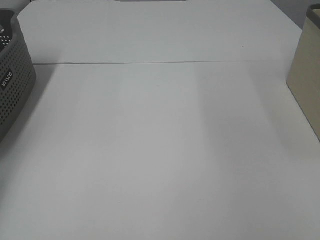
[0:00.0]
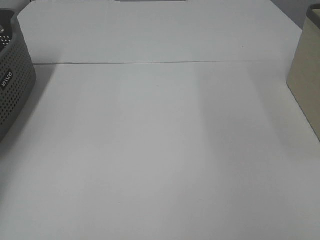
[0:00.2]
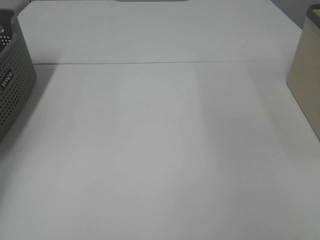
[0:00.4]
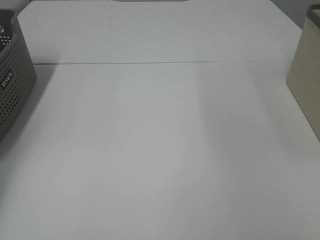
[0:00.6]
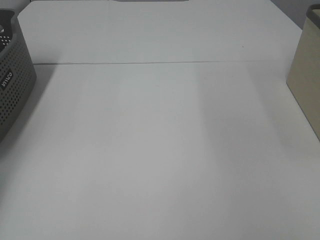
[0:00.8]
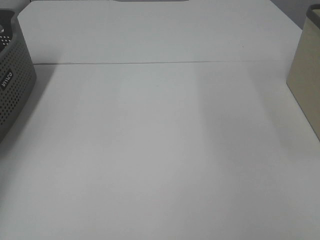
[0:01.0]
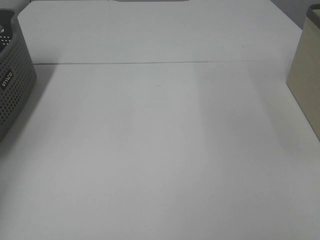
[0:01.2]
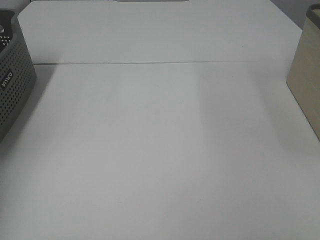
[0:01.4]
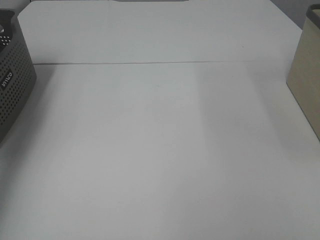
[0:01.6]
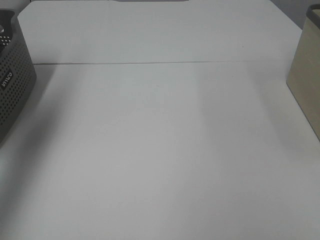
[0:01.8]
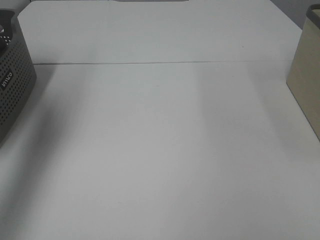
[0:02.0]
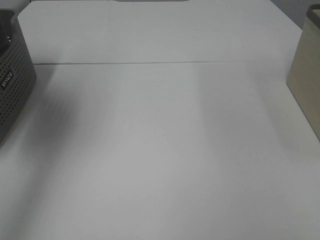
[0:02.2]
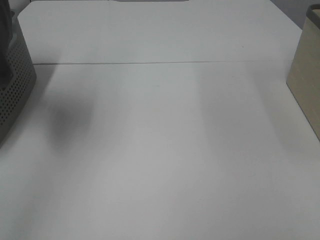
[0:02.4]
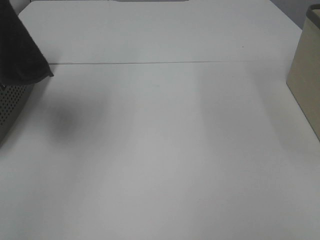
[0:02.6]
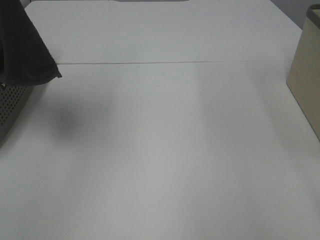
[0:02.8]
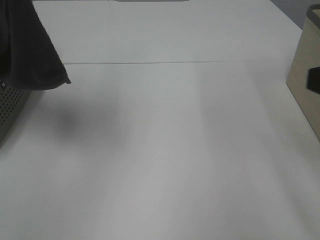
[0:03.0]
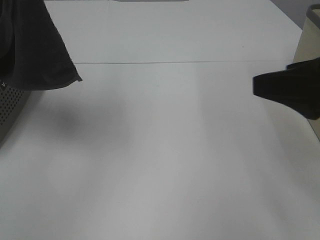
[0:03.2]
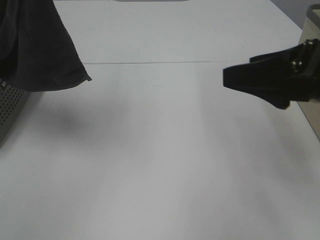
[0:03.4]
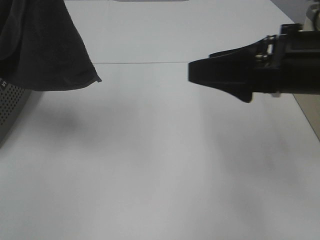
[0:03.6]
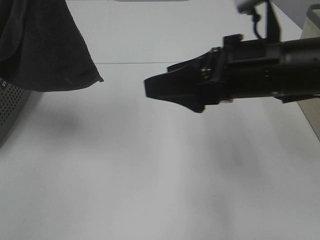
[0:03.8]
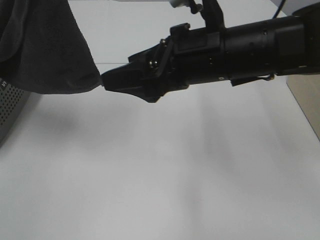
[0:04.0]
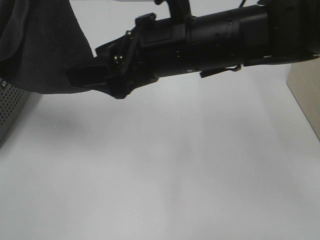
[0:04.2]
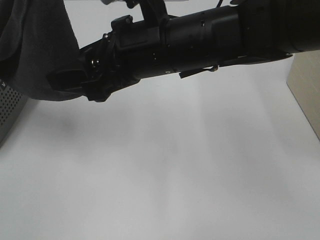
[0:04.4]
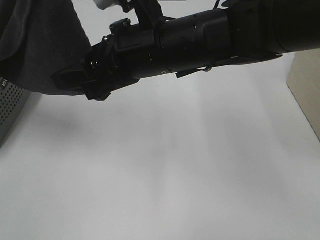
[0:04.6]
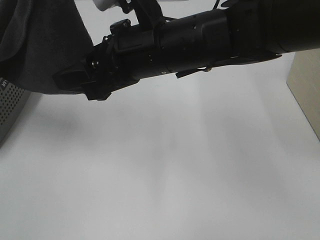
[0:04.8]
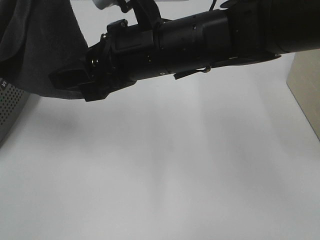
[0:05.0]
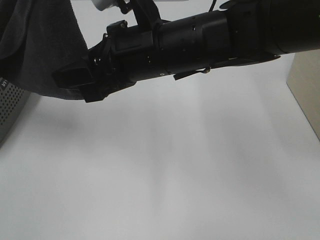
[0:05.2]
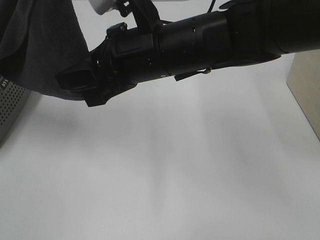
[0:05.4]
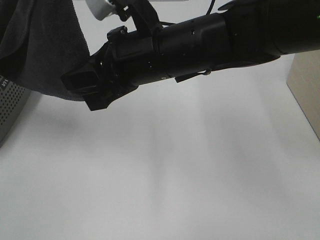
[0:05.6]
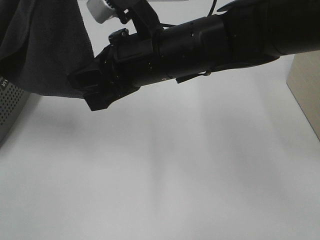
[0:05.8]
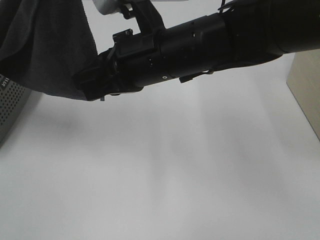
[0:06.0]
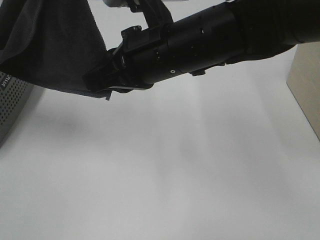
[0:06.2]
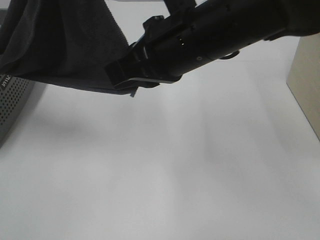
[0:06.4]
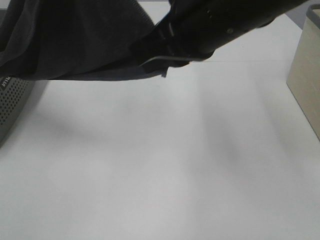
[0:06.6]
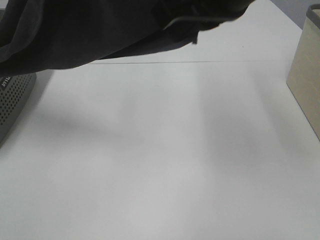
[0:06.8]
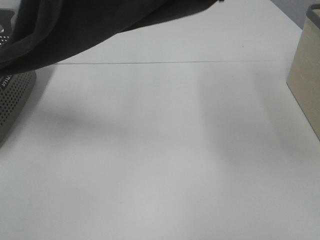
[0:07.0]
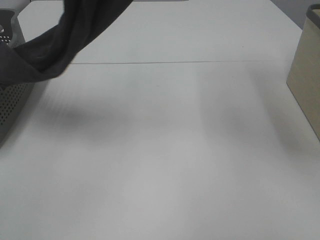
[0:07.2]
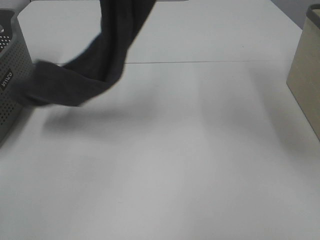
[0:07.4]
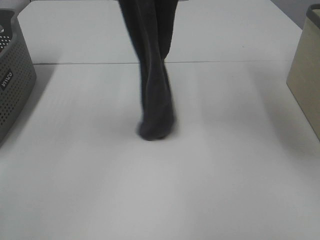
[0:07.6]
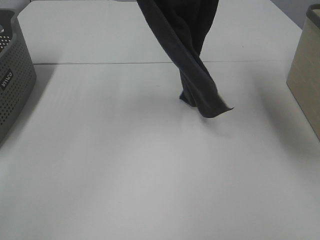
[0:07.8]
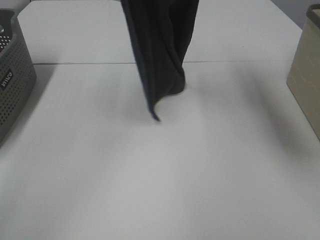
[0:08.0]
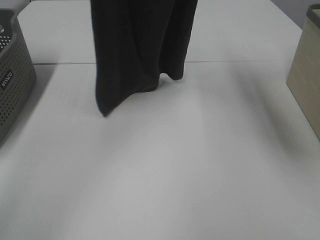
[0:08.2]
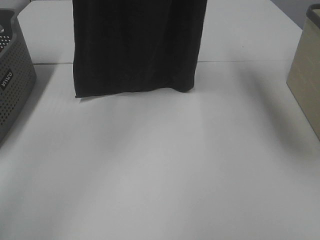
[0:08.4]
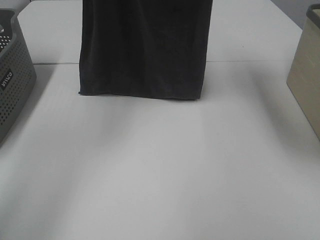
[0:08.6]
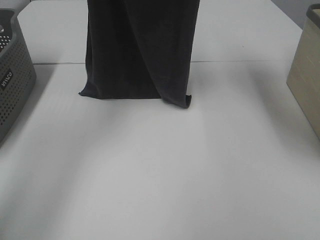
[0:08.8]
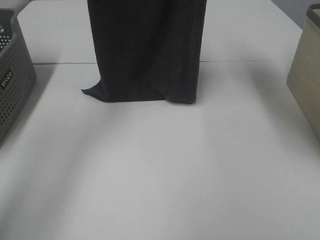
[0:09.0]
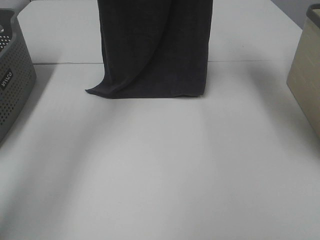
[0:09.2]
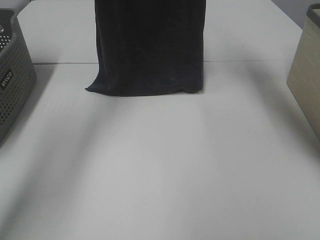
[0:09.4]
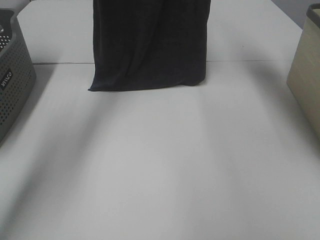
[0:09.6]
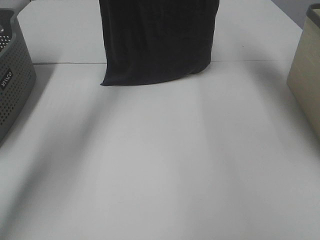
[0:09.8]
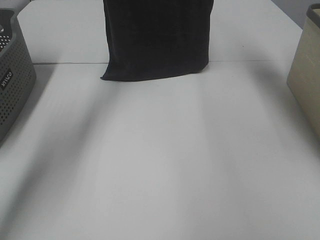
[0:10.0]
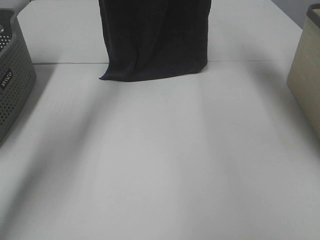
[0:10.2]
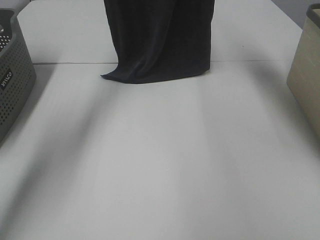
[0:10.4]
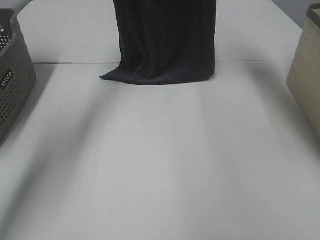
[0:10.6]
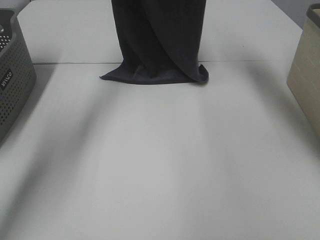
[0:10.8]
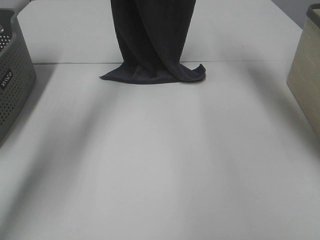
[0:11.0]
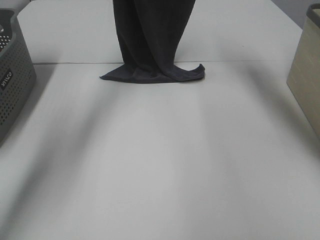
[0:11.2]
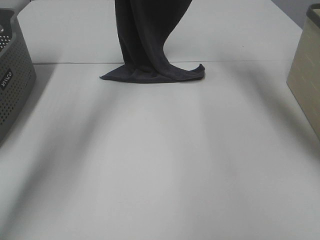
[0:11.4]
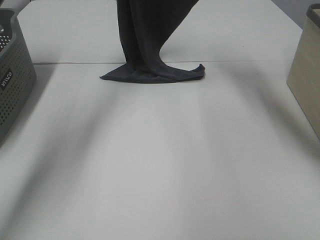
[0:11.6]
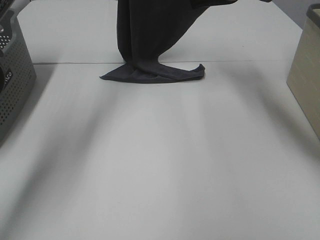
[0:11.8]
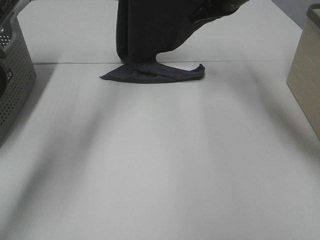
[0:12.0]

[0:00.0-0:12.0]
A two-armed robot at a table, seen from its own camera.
Task of the whole recording: Remove the towel and place it.
Step, 0:02.0 to 0:05.6: Right hand: grab a corner of the grey towel and straighten it.
0:00.0 to 0:01.6: The left gripper travels upward by some 20 cm, and closes its fingers.
0:01.6 to 0:03.0: The right gripper travels forward by approximately 10 cm, while the left gripper travels to the right, upward and backward by some 25 cm.
0:03.0 to 0:04.4: The right gripper shifts about 25 cm to the left and forward.
0:04.4 to 0:06.0: The right gripper closes.
0:06.0 to 0:07.6: The right gripper moves upward, approximately 25 cm, while the left gripper moves forward, about 10 cm.
0:07.6 to 0:09.0: The left gripper is displaced forward and downward by about 15 cm, while the right gripper moves forward, roughly 15 cm.
0:09.0 to 0:10.4: Both grippers move forward, approximately 5 cm.
0:10.4 to 0:12.0: The left gripper is displaced downward by roughly 5 cm, while the right gripper is displaced downward by roughly 20 cm.

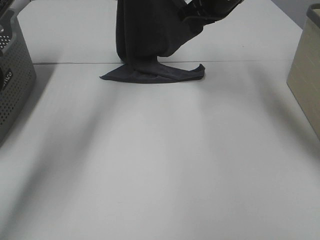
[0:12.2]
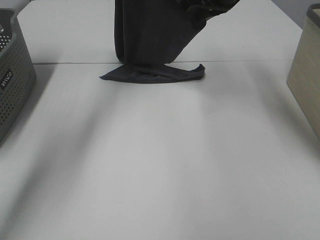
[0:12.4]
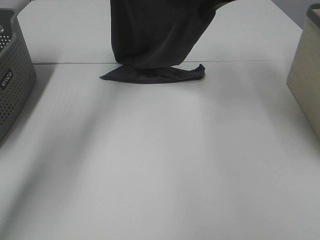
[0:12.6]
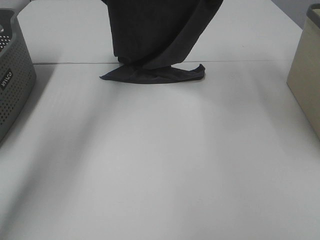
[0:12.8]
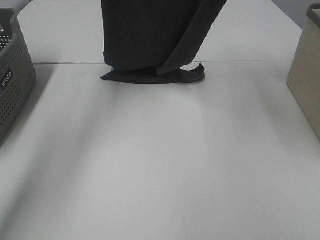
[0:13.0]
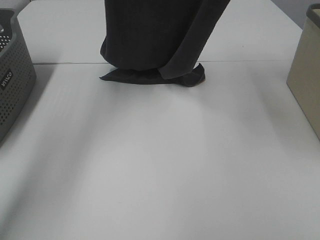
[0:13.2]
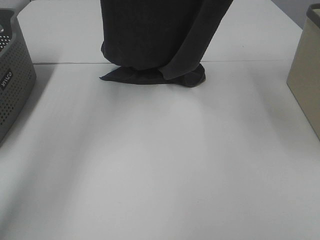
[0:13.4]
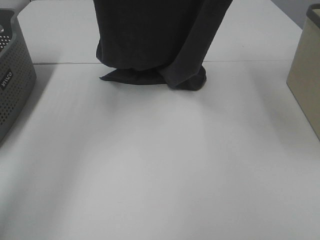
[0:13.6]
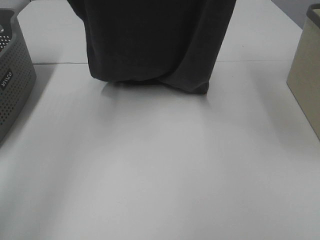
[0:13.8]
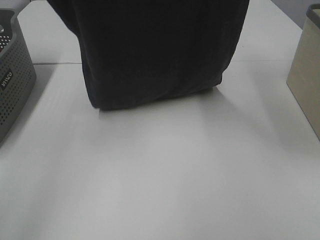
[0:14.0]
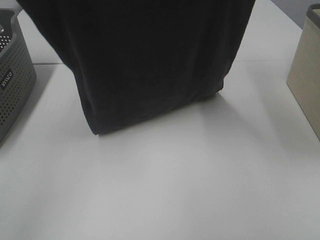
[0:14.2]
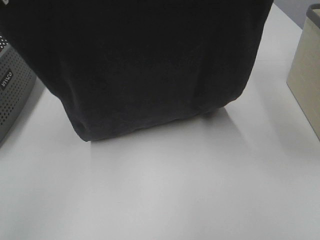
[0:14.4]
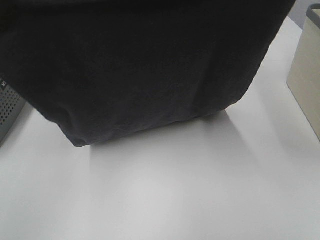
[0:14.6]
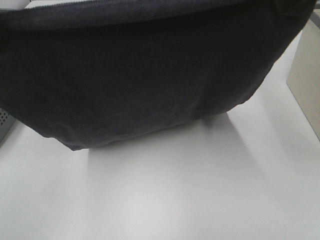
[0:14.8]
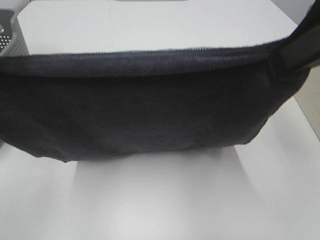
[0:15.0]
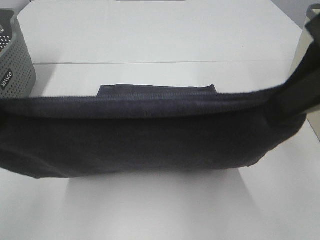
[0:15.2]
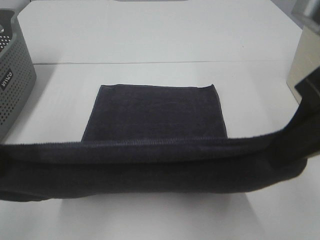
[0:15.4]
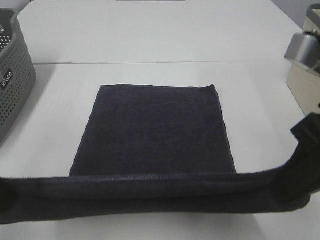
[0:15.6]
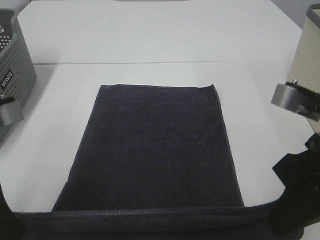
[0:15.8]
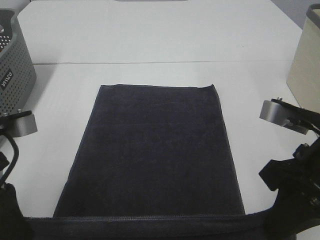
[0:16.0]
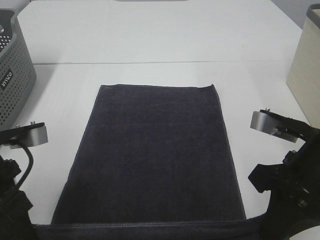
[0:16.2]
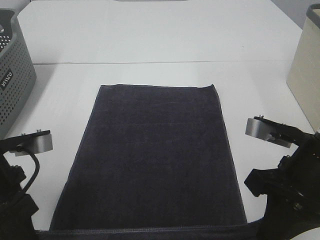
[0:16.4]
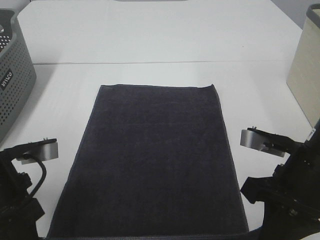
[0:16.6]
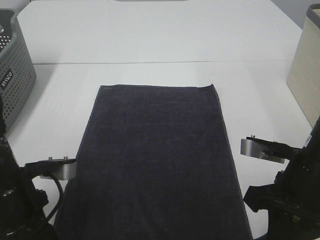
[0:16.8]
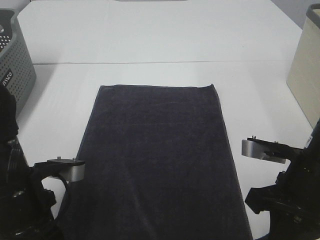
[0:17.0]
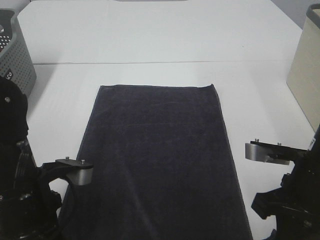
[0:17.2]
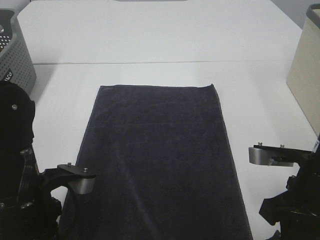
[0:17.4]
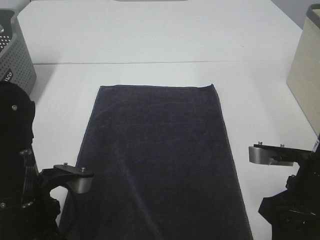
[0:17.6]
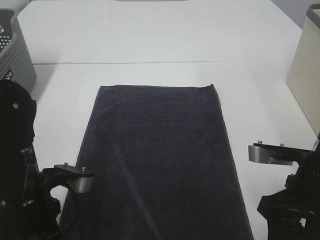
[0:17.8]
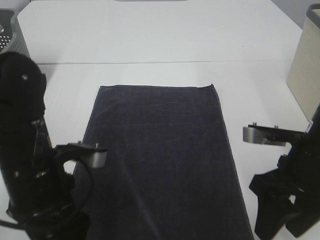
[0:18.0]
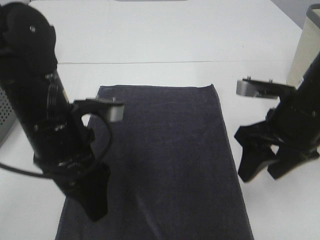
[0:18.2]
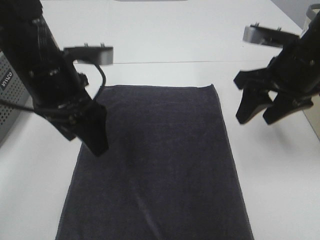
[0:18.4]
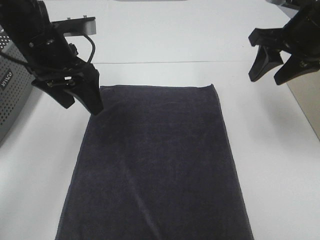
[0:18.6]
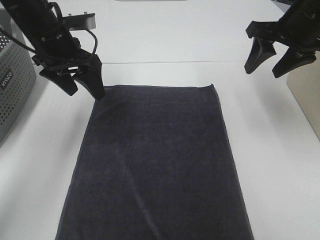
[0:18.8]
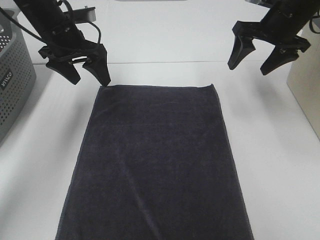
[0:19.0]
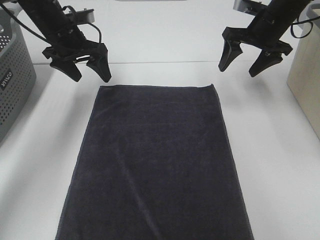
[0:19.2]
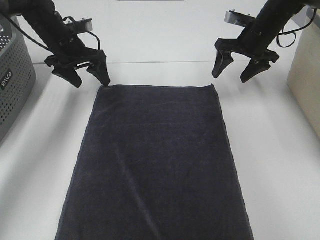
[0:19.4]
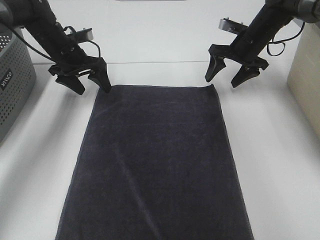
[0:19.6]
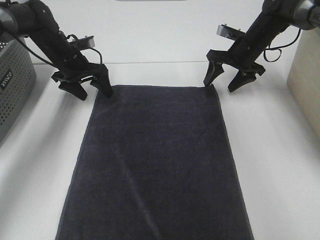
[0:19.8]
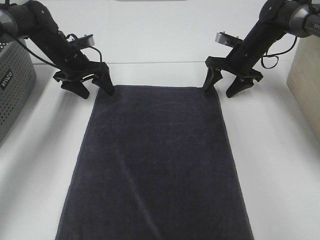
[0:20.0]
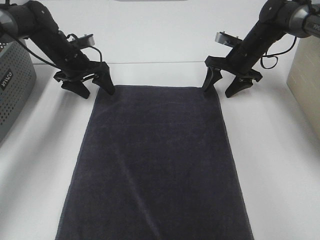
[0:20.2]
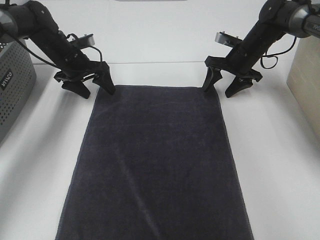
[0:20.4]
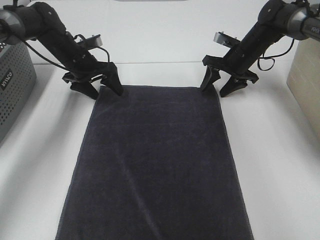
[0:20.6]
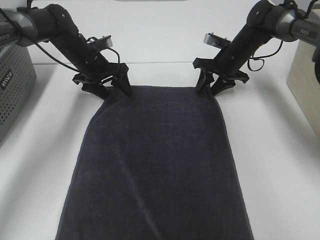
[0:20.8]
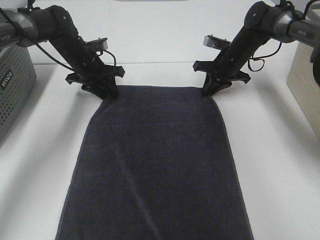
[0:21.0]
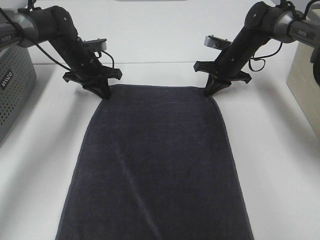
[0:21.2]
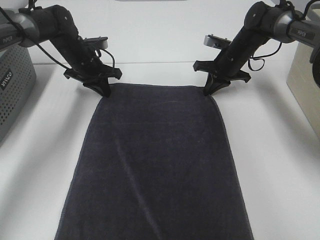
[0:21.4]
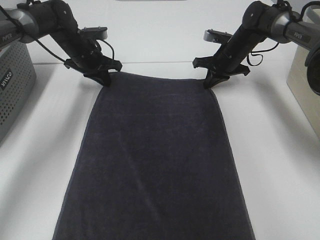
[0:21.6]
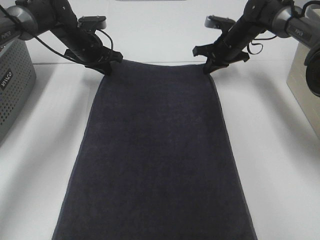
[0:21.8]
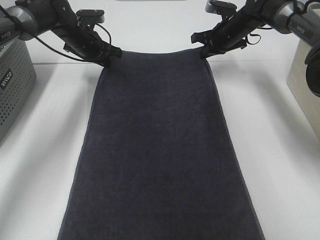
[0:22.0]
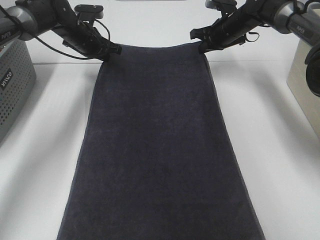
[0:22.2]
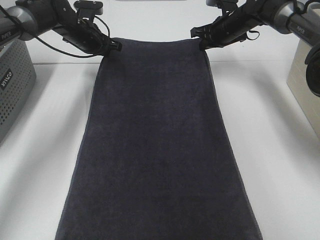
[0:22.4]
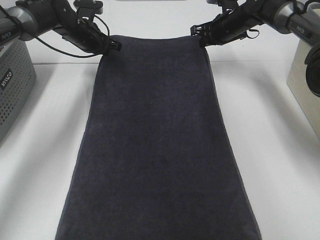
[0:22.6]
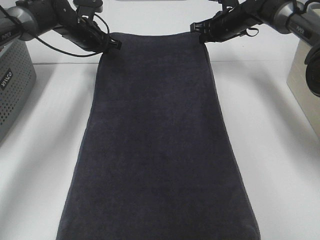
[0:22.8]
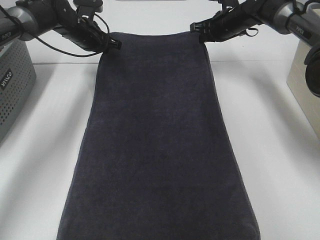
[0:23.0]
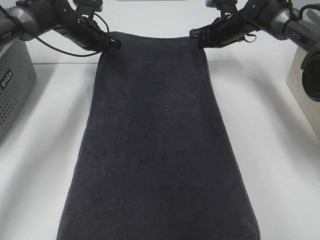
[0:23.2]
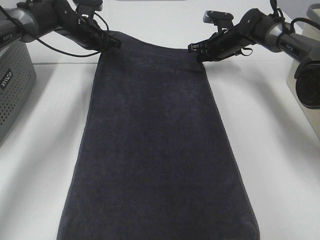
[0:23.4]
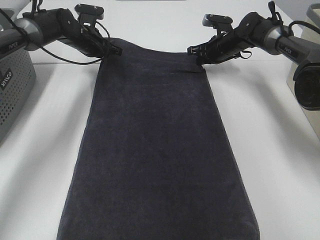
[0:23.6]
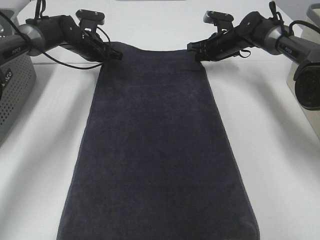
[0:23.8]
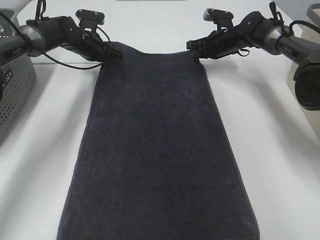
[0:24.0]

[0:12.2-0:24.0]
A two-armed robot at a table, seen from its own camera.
Task of the whole recording: Remove the towel and place it.
Step, 0:13.4 to 0:18.6: Left hand:adjust the gray towel.
Step, 0:13.4 to 0:18.6: Right hand:adjust the gray towel.
0:12.2 to 0:13.6: The right gripper shifts some 20 cm upward and backward. The left gripper heads backward and upward, covering roughly 20 cm.
0:13.6 to 0:15.2: The two grippers go approximately 25 cm backward and downward.
0:15.2 to 0:16.6: Both grippers travel together downward, roughly 20 cm.
0:16.6 to 0:18.2: The right gripper shifts roughly 5 cm forward, and opens up; the left gripper heads to the right, covering roughly 10 cm, and opens its fingers.
0:18.2 to 0:19.6: Both grippers move forward, roughly 30 cm.
0:19.6 to 0:21.0: The right gripper moves downward, some 5 cm, and closes; the left gripper closes its fingers.
0:21.0 to 0:22.6: The left gripper is displaced forward by about 5 cm, and closes its fingers. The right gripper heads upward and forward, covering approximately 10 cm.
0:22.6 to 0:24.0: The right gripper shifts about 5 cm downward.
